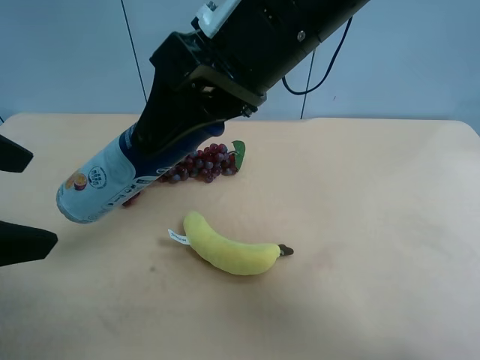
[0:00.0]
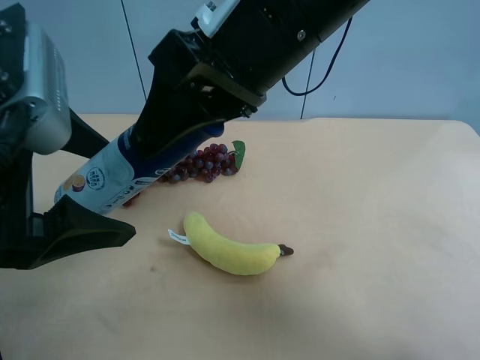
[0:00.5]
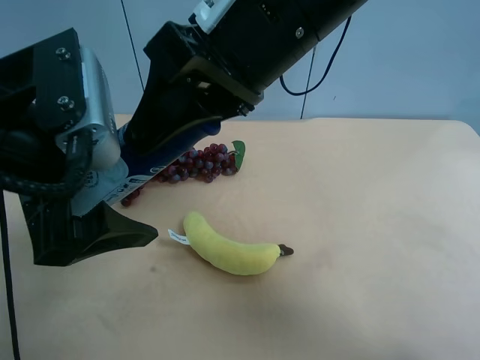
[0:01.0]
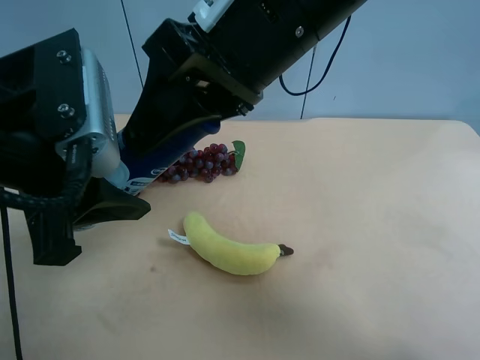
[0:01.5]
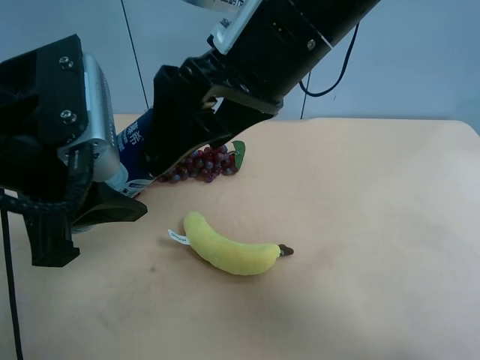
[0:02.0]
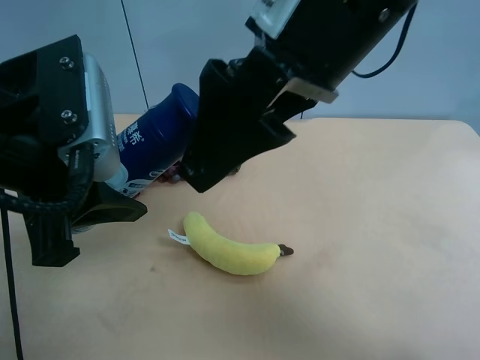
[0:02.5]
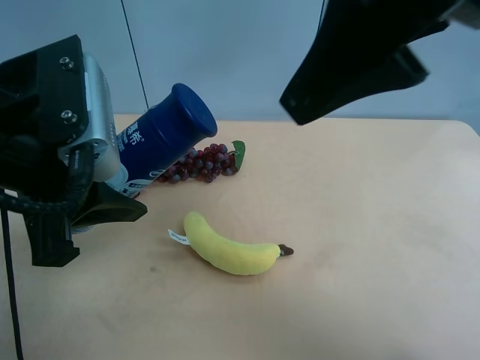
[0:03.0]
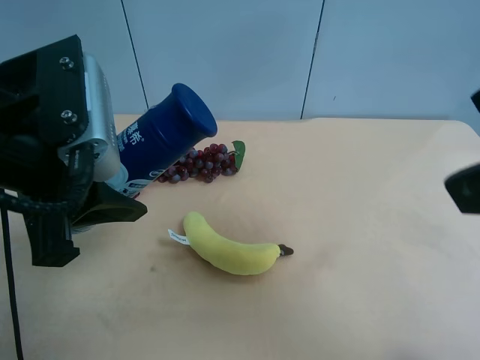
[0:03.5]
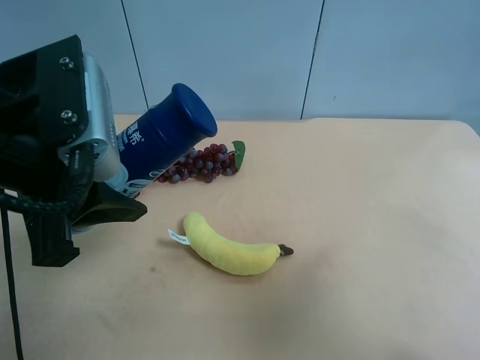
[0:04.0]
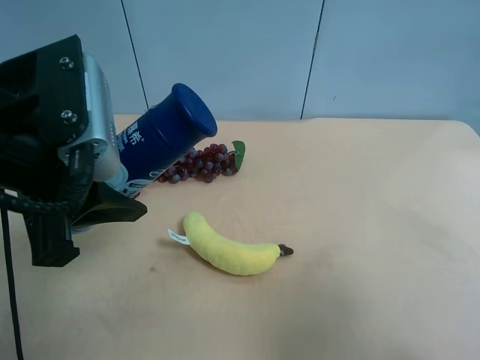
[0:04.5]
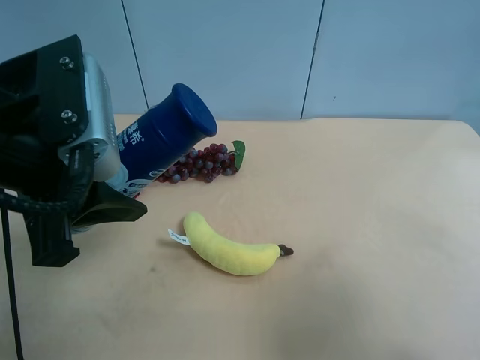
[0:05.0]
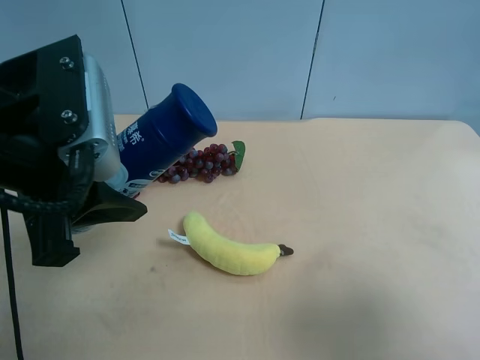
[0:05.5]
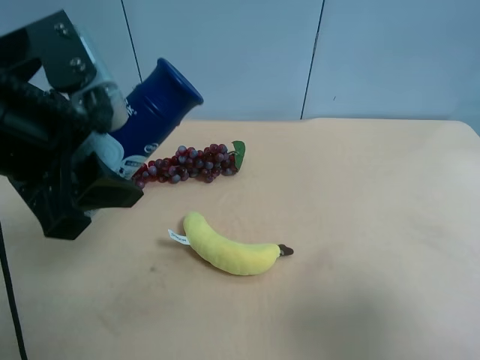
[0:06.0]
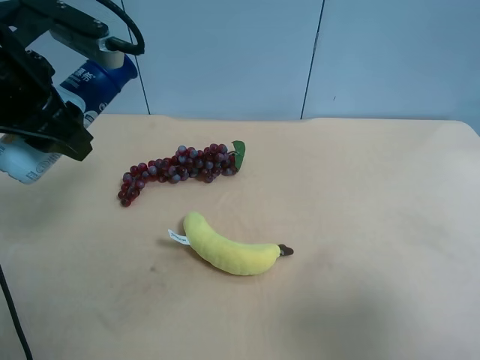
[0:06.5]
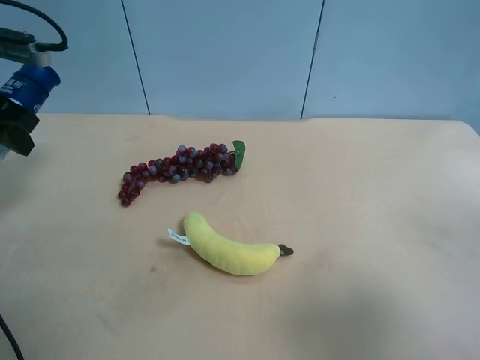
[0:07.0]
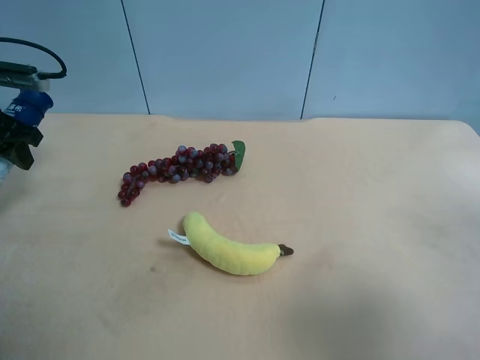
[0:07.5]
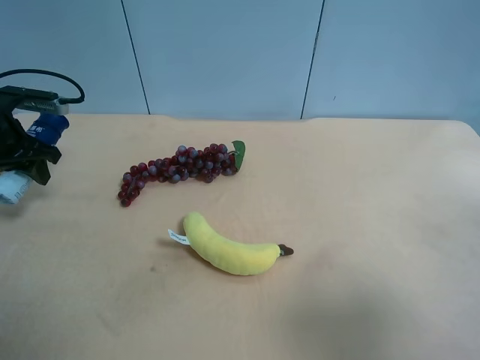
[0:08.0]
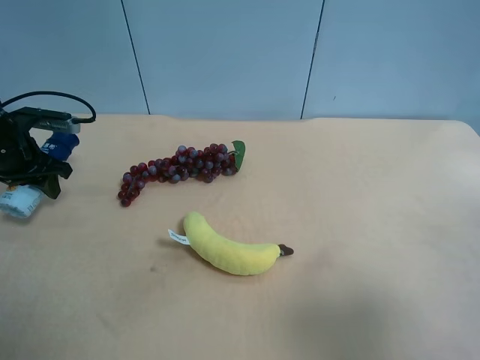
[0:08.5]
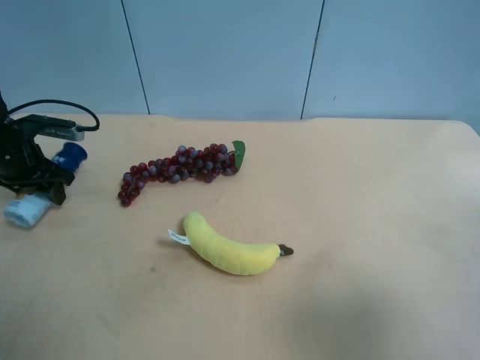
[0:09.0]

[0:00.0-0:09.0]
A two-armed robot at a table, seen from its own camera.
Task of the whole recording: use the right gripper to pick up the item and transfer it from the right gripper to the left gripper.
0:00.0 to 0:02.0: The left gripper moves to the right, roughly 5 cm, and closes its fingers. The right gripper opens up.
0:02.0 to 0:04.5: The right gripper travels to the right and backward by some 30 cm.
0:04.5 to 0:07.0: The left gripper moves to the left and forward, approximately 20 cm.
0:07.0 to 0:09.0: The left gripper heads downward and forward, covering some 15 cm, and opens.

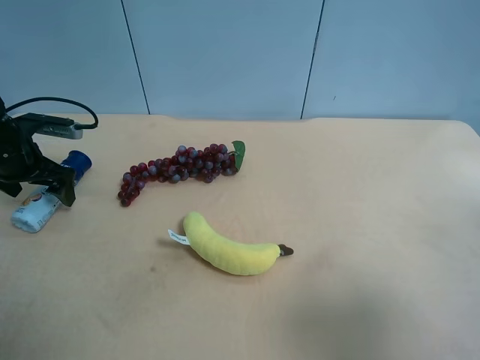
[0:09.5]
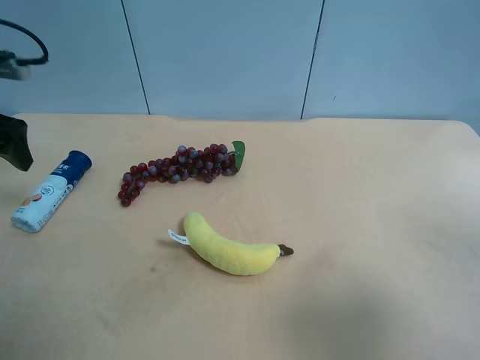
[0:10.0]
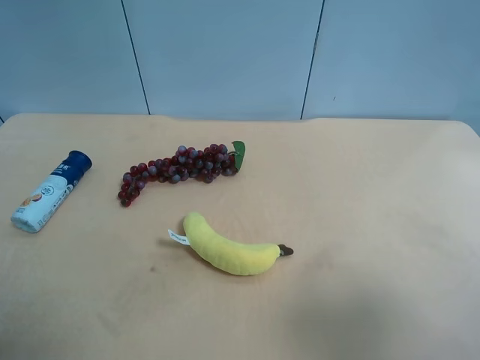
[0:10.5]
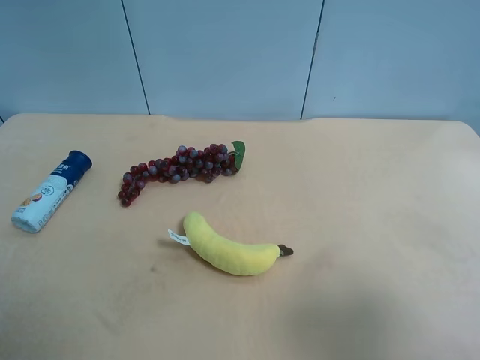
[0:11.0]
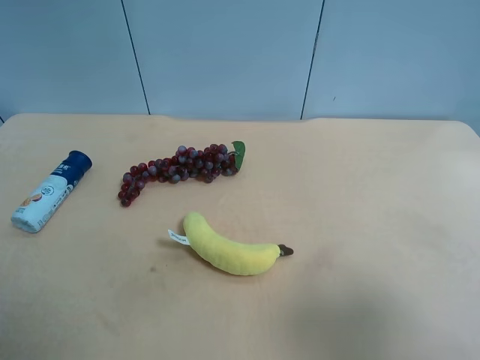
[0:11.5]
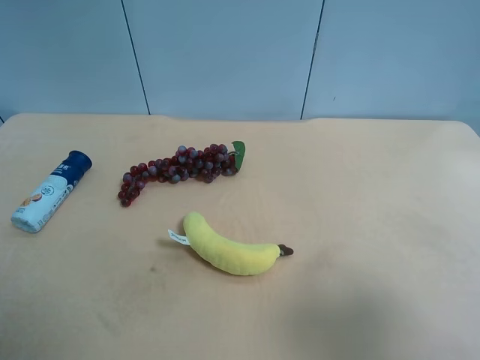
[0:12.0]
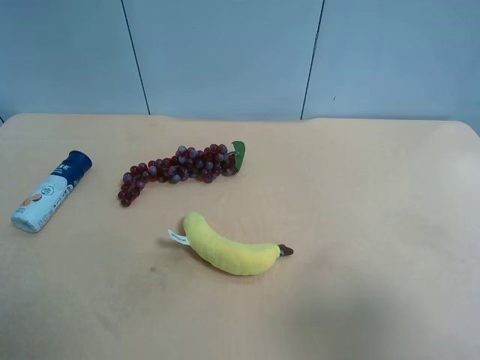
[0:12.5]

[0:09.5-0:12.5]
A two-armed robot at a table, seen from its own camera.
Task of the whole recording: use the right gripper to pick up the item and transfer it from the right gripper to the left gripper.
0:09.5 to 0:11.0: The left gripper heads backward and upward, covering approximately 40 cm.
